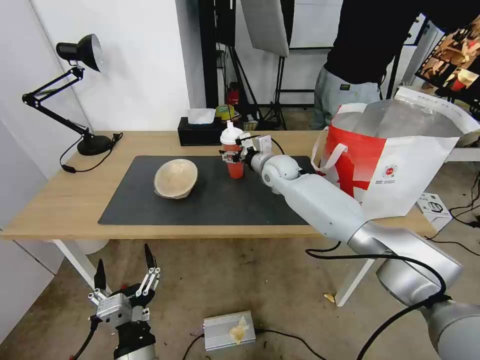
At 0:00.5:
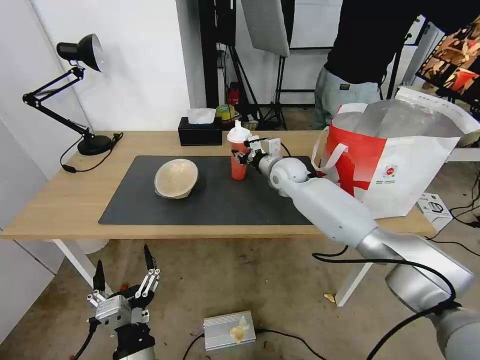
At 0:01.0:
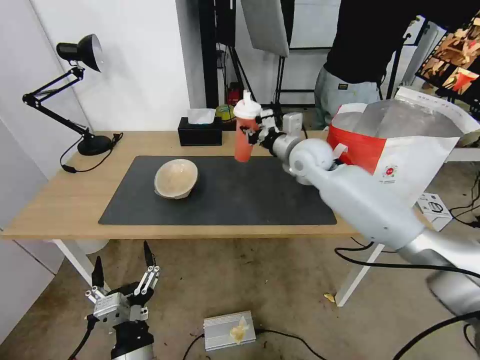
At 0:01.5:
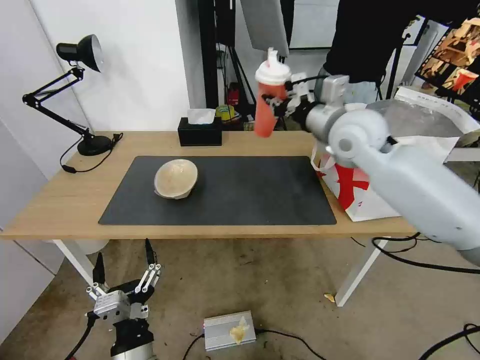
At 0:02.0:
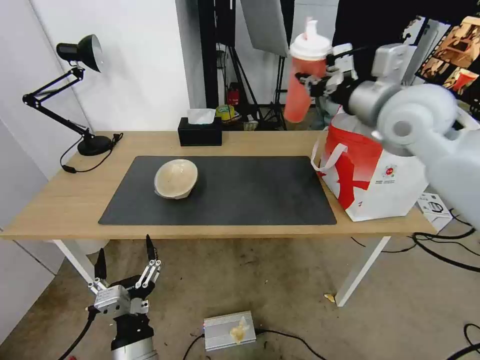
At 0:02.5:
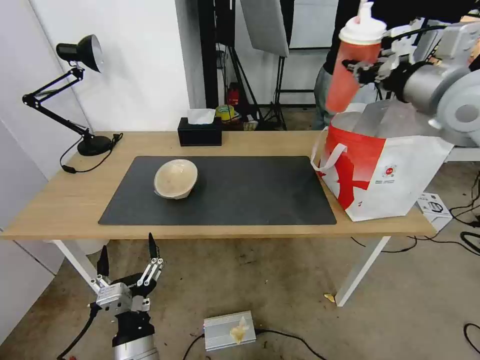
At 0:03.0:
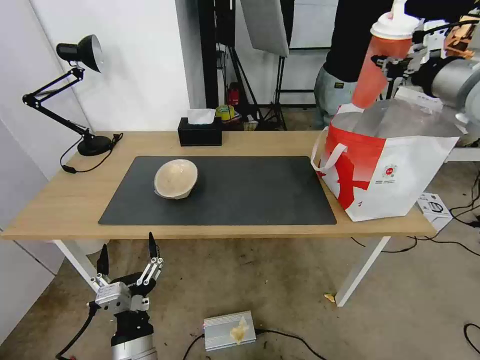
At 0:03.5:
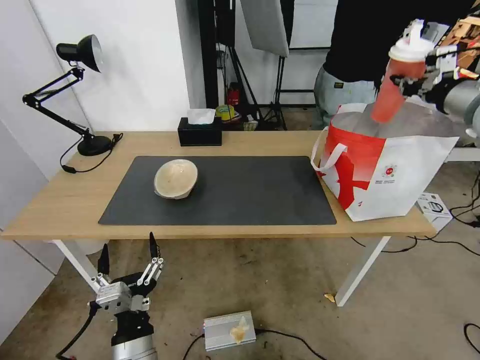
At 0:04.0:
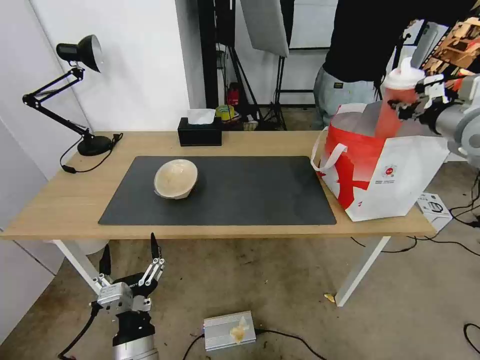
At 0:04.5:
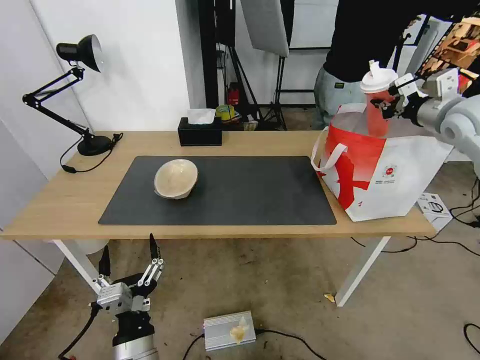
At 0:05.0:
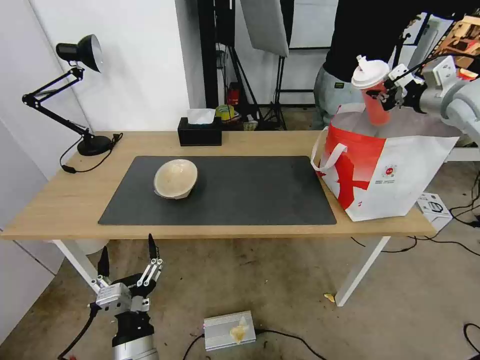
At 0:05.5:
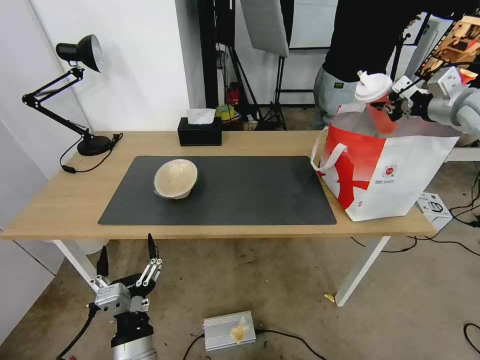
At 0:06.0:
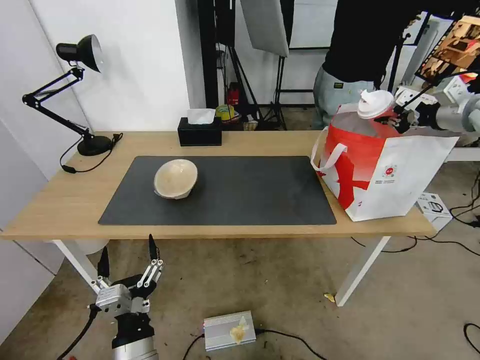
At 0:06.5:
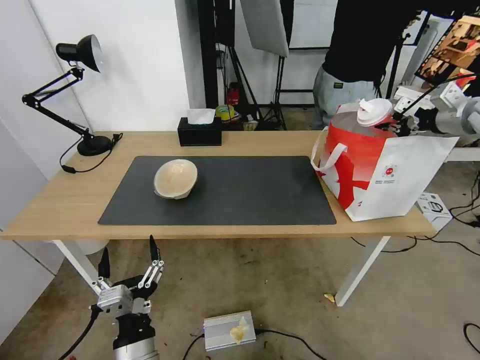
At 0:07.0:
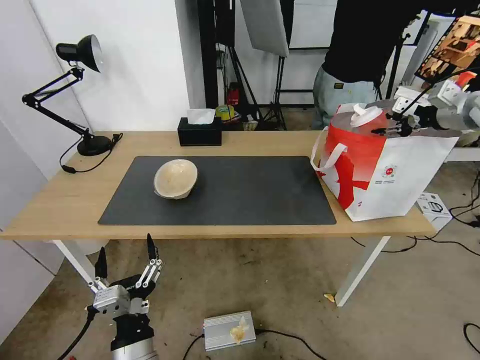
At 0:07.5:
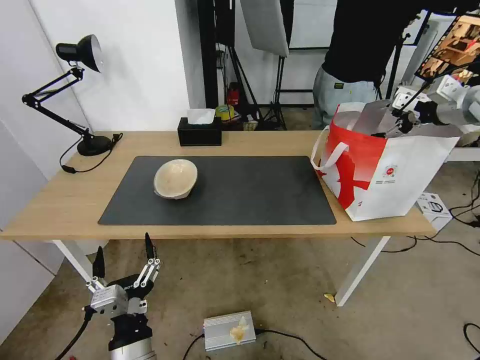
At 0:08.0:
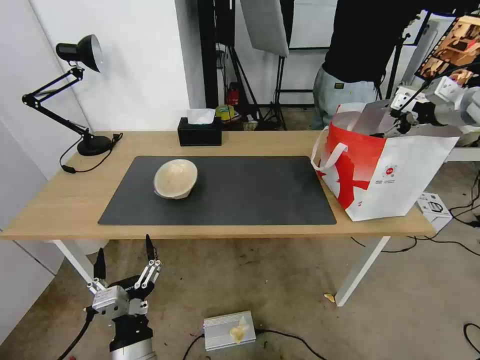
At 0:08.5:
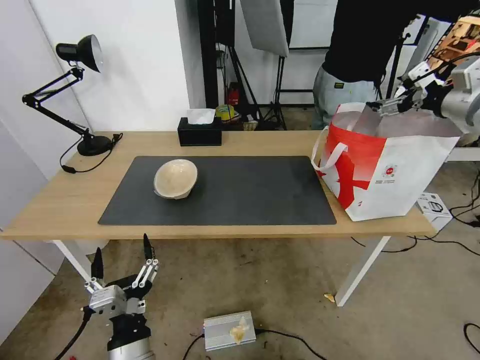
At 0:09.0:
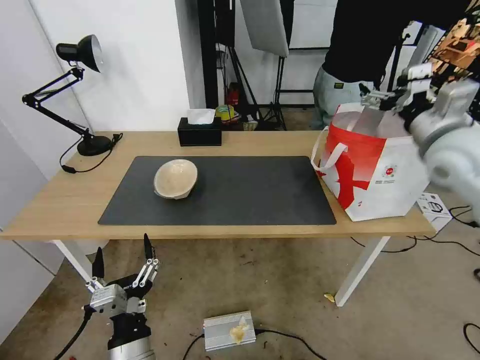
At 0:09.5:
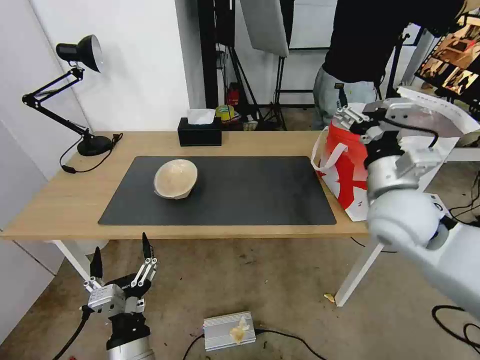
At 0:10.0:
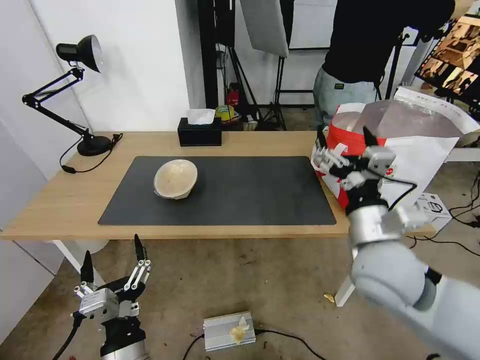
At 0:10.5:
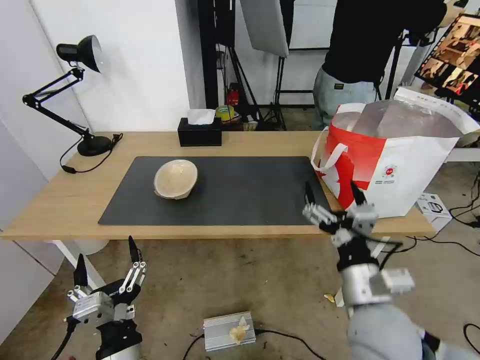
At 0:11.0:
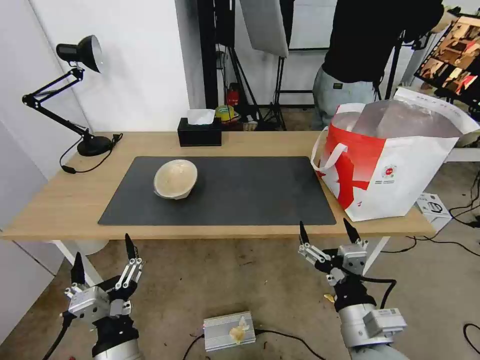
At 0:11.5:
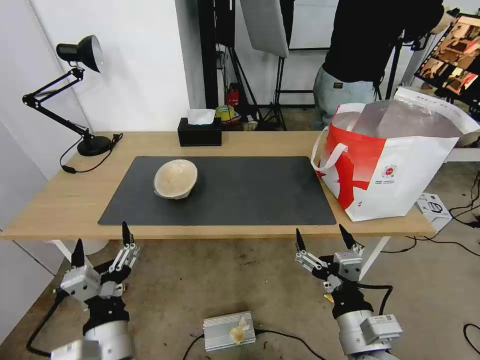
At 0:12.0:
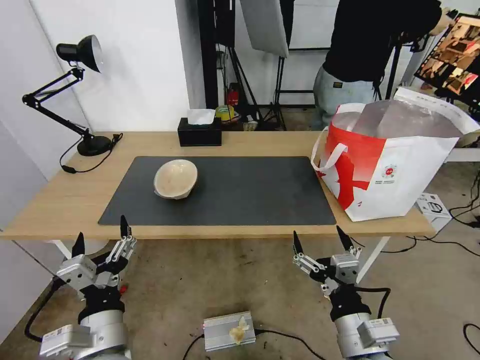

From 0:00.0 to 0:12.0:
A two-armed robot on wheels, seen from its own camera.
Task of the whole recording: Pick up the trash from the table and place it into the takeout bag.
From 0:00.0 to 0:02.0: The right gripper heads upward, to the right and backward, covering roughly 30 cm, and closes its fingers.
From 0:02.0 to 0:04.0: The right gripper goes some 20 cm to the right.
From 0:04.0 to 0:06.0: The right gripper moves some 5 cm.
From 0:06.0 to 0:08.0: The right gripper opens up.
From 0:08.0 to 0:10.0: The right gripper travels to the left, backward and downward by approximately 40 cm.
From 0:10.0 to 0:12.0: The right gripper travels backward and downward by roughly 20 cm; the left gripper moves some 5 cm.

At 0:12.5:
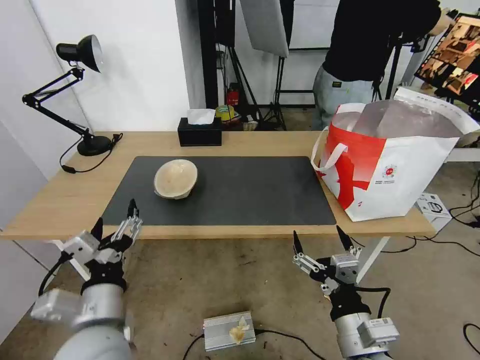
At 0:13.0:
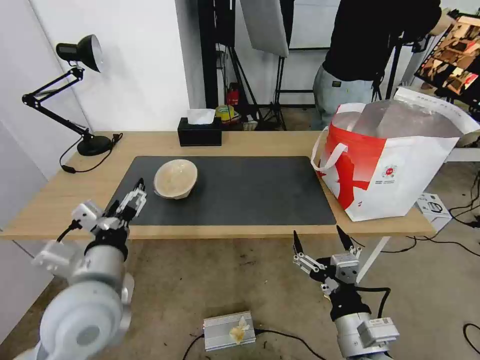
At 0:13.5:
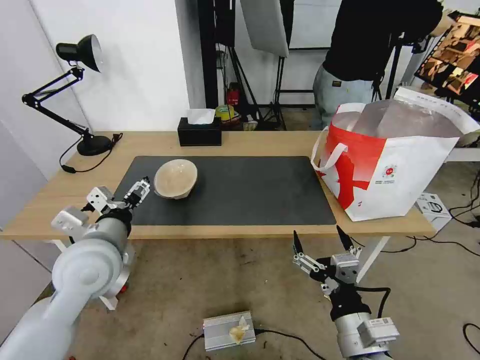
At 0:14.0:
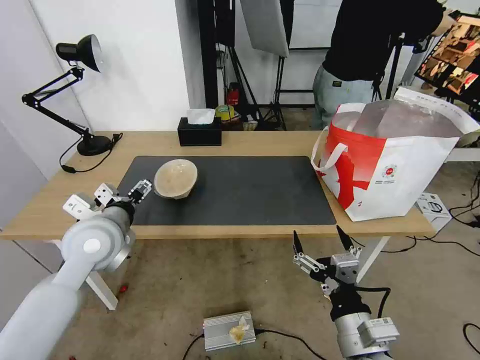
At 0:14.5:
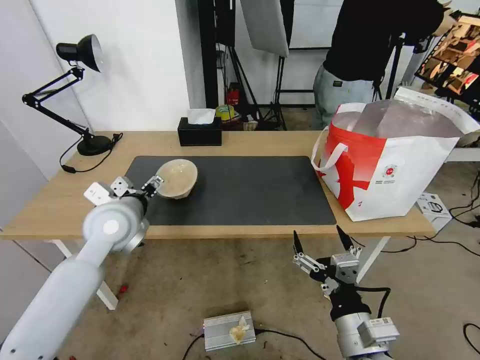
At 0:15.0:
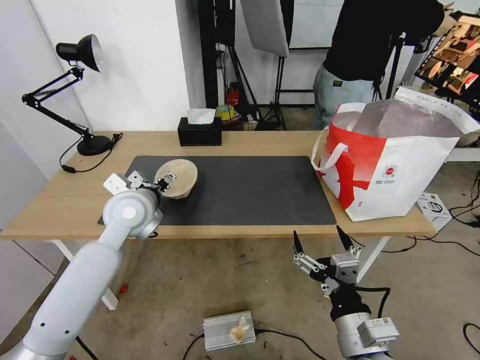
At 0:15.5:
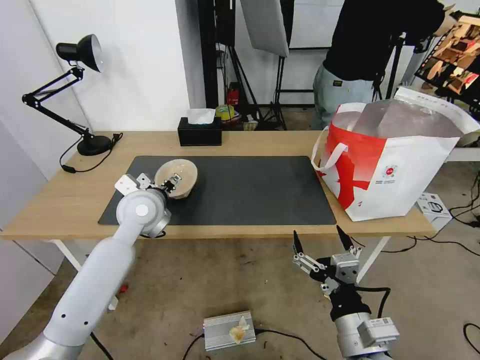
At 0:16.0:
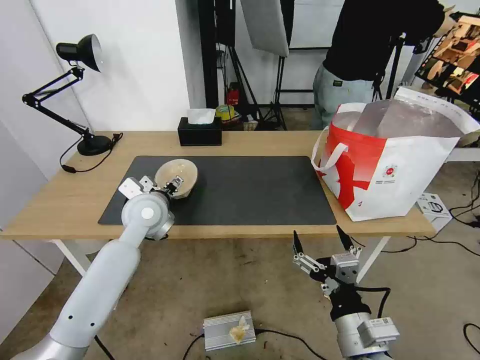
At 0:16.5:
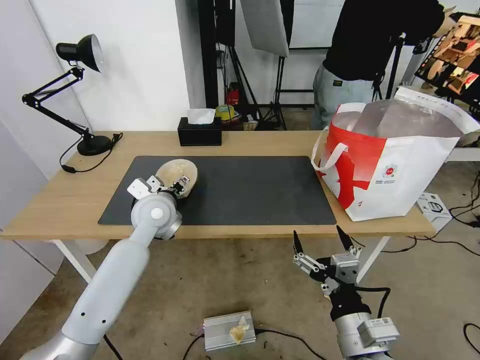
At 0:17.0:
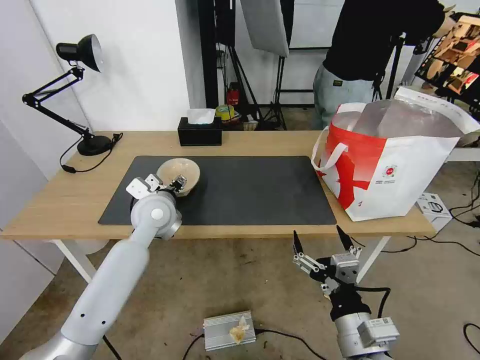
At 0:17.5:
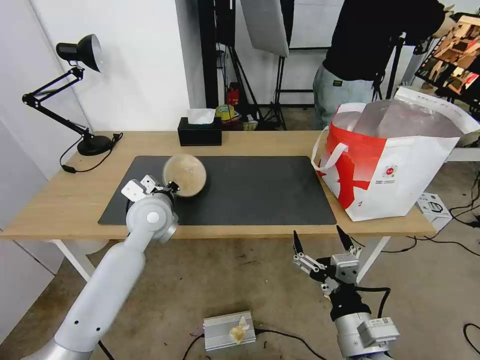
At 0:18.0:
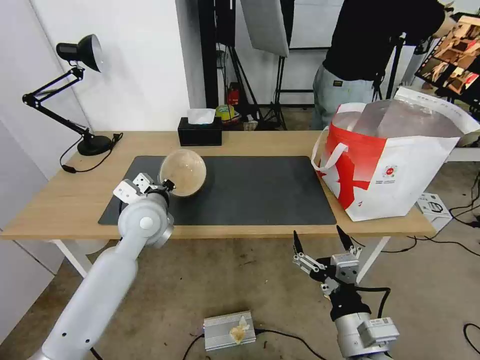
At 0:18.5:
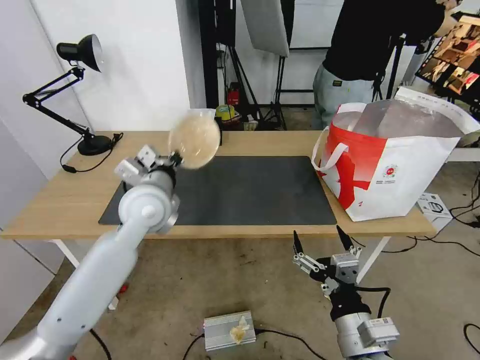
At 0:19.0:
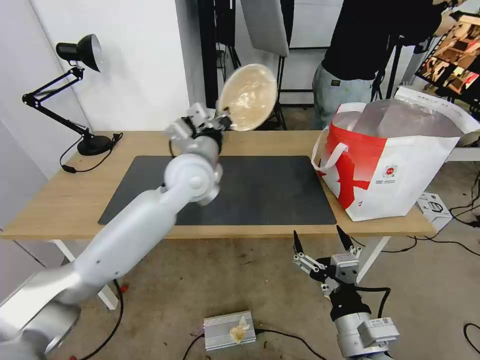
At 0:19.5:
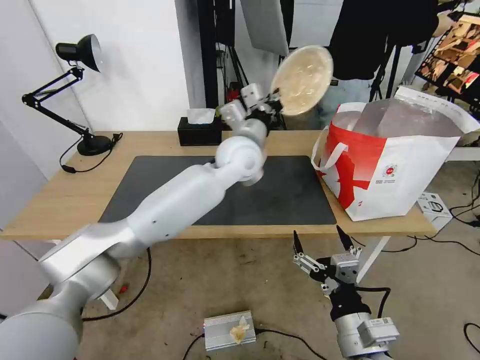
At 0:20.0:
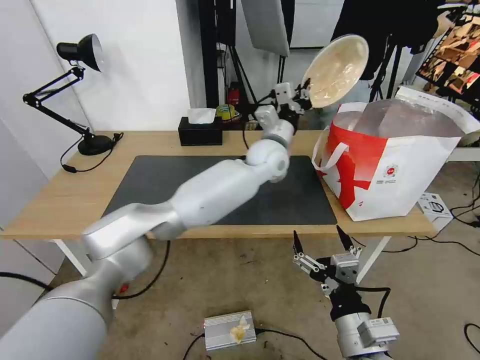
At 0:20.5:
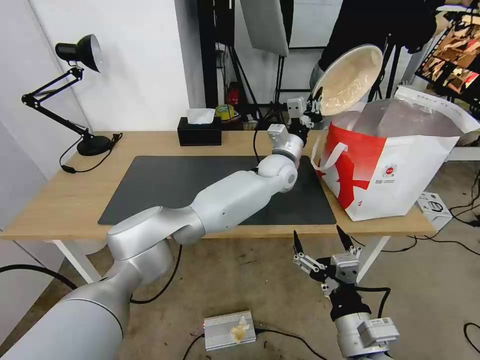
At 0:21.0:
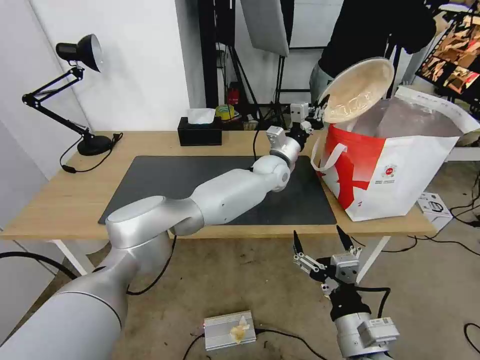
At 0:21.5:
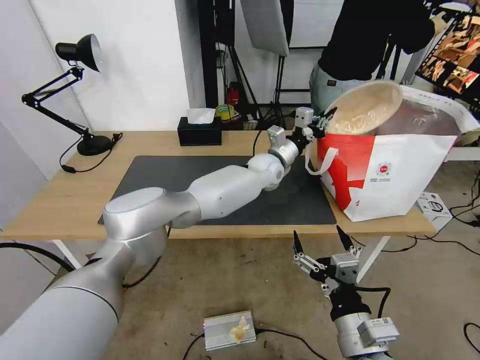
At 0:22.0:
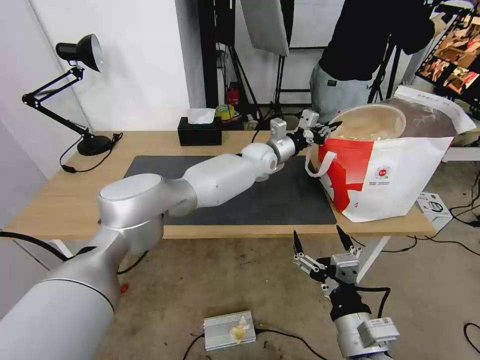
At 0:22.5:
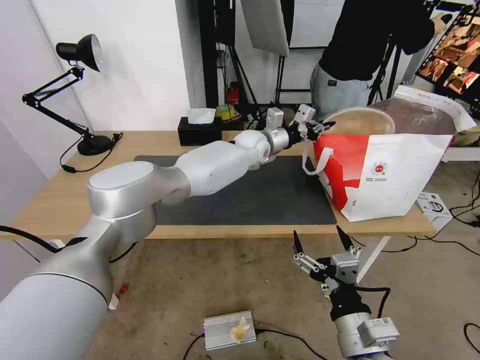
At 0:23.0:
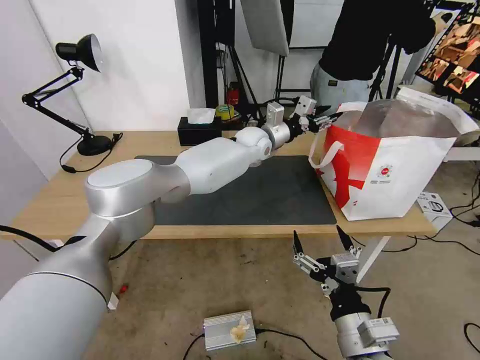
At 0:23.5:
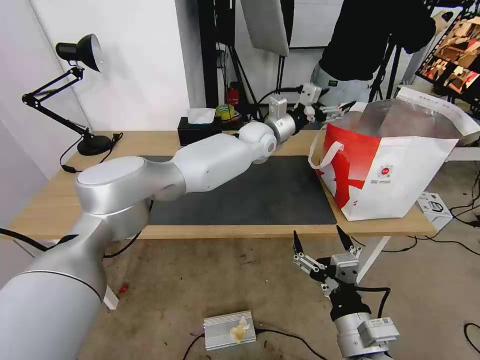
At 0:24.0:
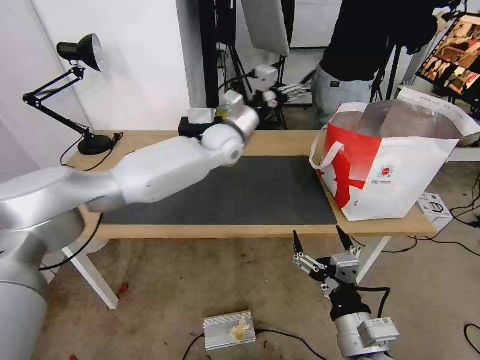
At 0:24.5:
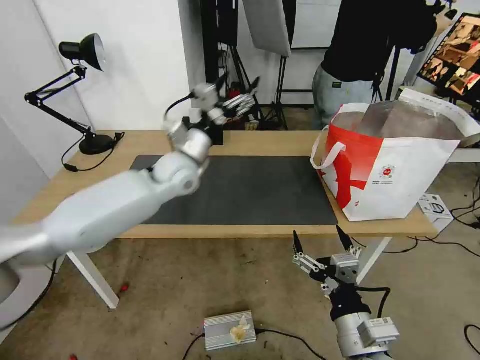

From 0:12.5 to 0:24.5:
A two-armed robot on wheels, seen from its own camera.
Task of the whole recording: Pick up the trash from the table and place it into the takeout bag.
From 0:12.5 to 0:14.5: The left gripper travels forward by about 20 cm.
From 0:14.5 to 0:16.5: The left gripper travels forward by about 5 cm.
From 0:16.5 to 0:18.5: The left gripper is displaced upward by about 5 cm, and closes its fingers.
From 0:18.5 to 0:20.5: The left gripper shifts some 30 cm to the right and forward.
From 0:20.5 to 0:22.5: The left gripper shifts approximately 10 cm forward and to the left.
From 0:22.5 to 0:24.5: The left gripper heads to the left and backward, covering roughly 20 cm, and opens its fingers.

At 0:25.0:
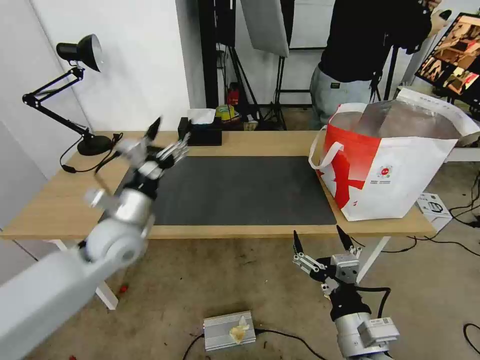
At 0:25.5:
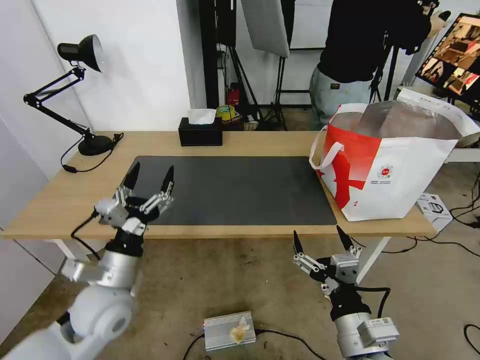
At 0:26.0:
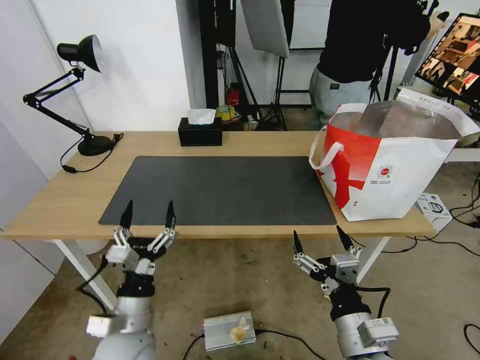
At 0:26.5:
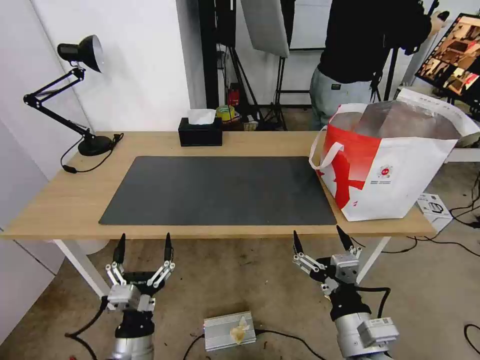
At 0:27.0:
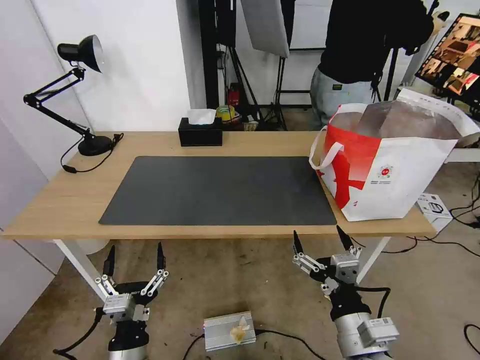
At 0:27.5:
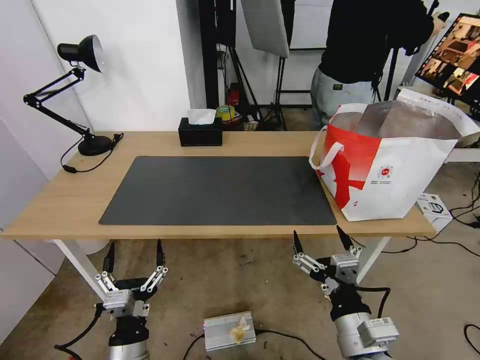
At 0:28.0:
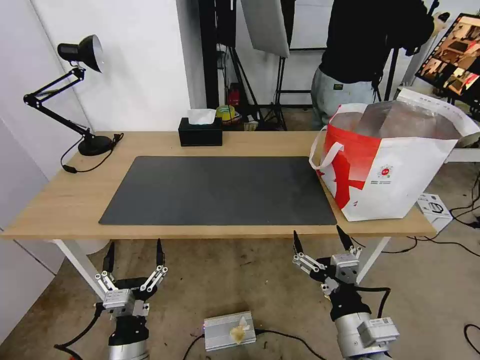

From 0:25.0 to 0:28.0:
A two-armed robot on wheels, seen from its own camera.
Task of the whole recording: Pick up the trash from the table and place it into the takeout bag.
From 0:25.0 to 0:26.5: The left gripper heads backward and downward, covering some 25 cm.
From 0:26.5 to 0:28.0: There are only small adjustments of the grippers.
